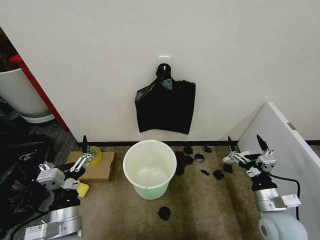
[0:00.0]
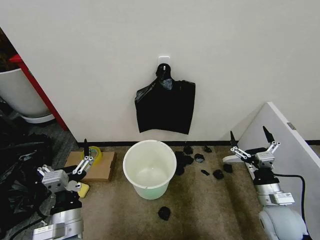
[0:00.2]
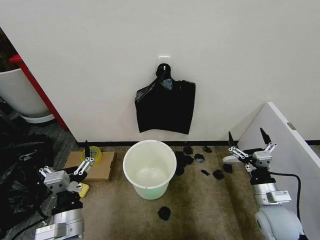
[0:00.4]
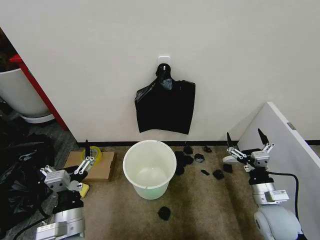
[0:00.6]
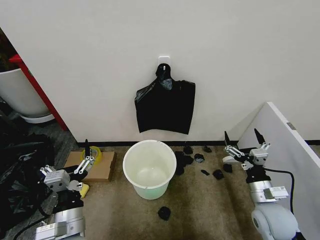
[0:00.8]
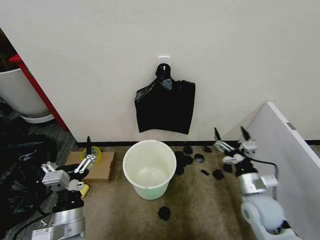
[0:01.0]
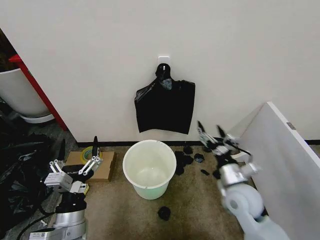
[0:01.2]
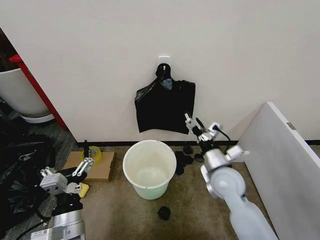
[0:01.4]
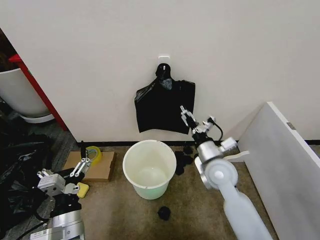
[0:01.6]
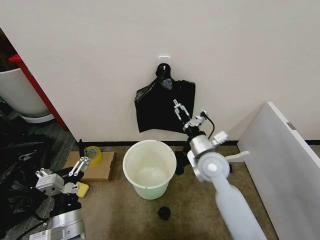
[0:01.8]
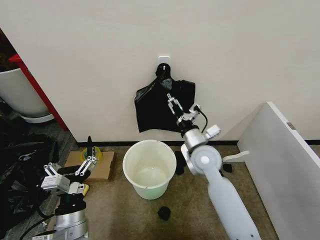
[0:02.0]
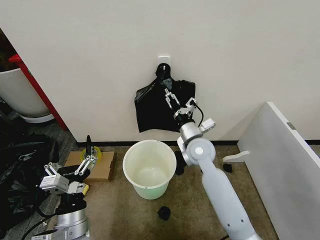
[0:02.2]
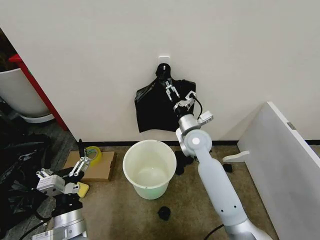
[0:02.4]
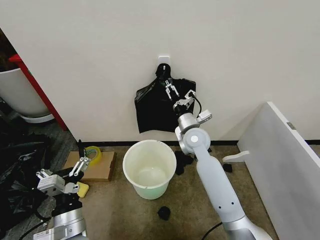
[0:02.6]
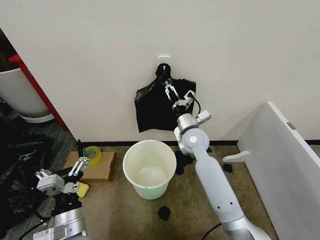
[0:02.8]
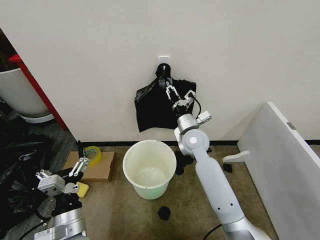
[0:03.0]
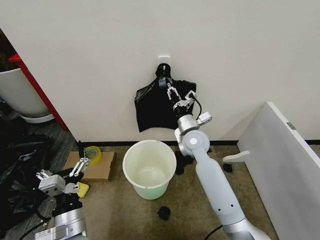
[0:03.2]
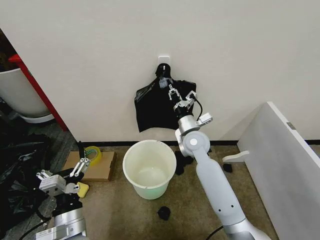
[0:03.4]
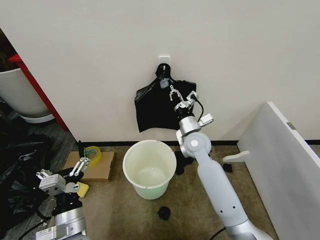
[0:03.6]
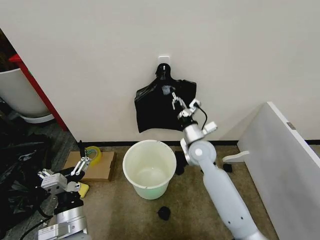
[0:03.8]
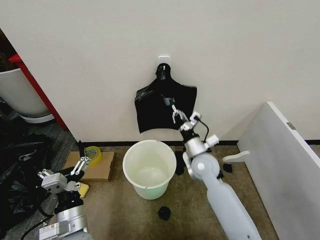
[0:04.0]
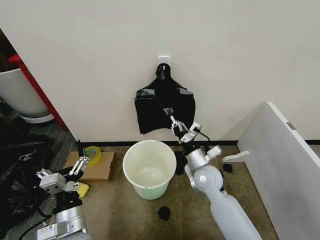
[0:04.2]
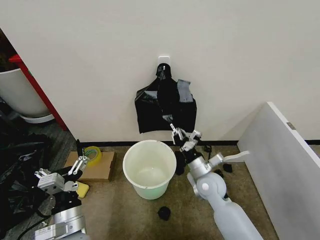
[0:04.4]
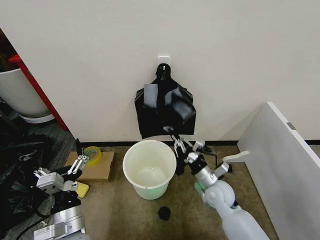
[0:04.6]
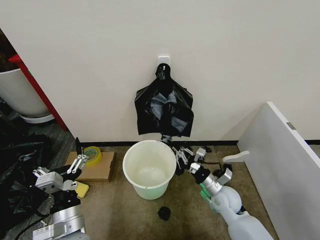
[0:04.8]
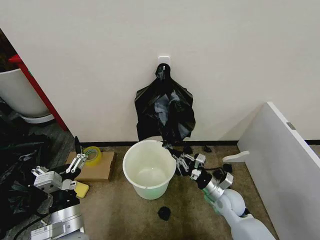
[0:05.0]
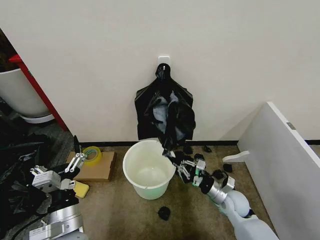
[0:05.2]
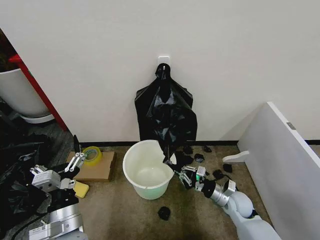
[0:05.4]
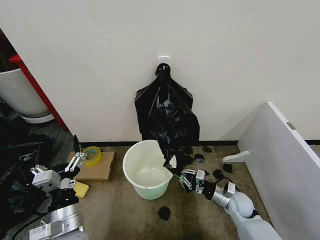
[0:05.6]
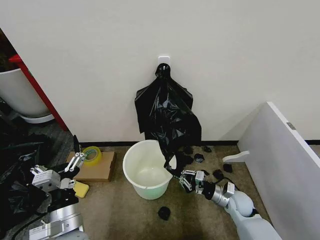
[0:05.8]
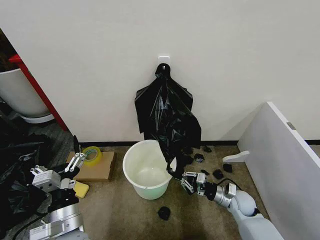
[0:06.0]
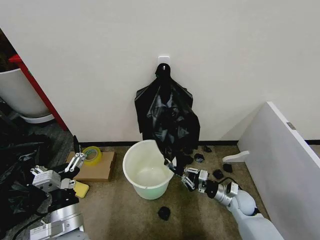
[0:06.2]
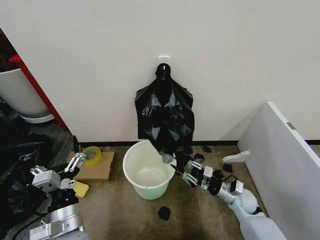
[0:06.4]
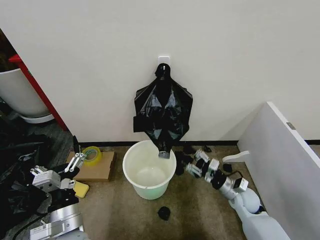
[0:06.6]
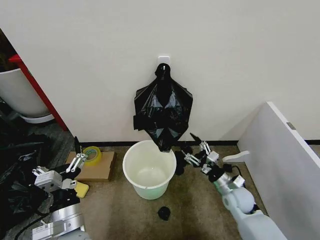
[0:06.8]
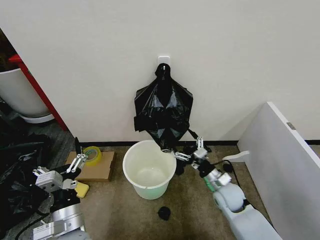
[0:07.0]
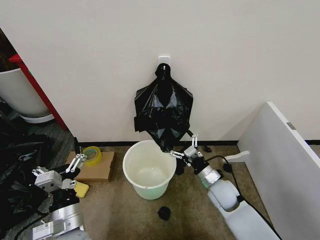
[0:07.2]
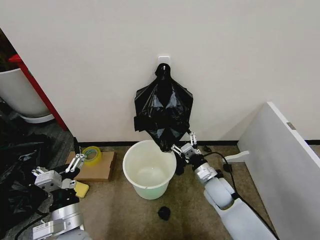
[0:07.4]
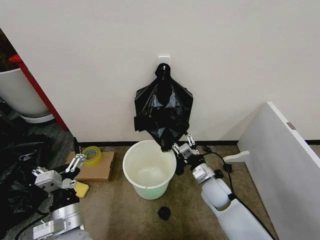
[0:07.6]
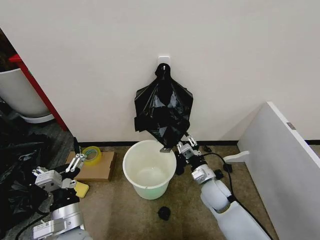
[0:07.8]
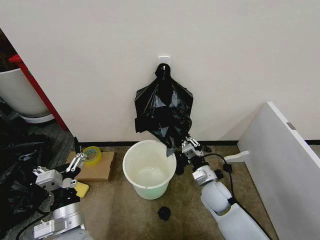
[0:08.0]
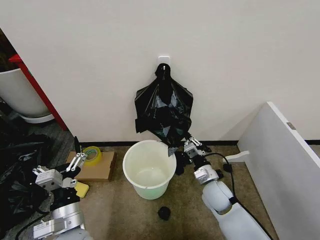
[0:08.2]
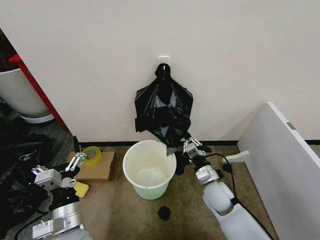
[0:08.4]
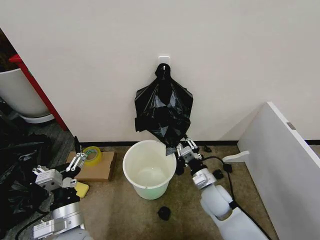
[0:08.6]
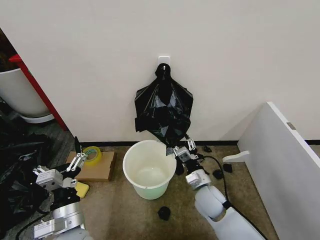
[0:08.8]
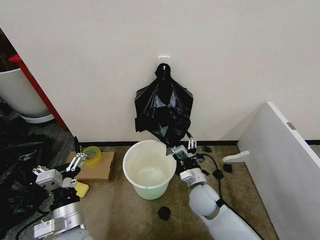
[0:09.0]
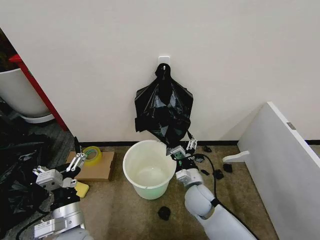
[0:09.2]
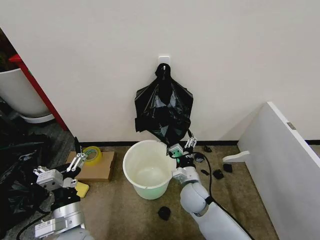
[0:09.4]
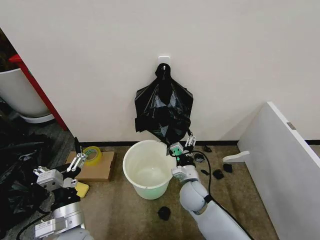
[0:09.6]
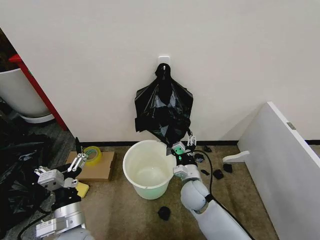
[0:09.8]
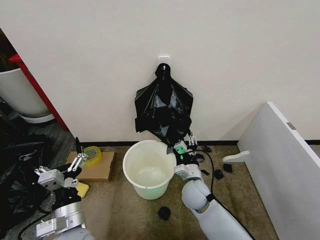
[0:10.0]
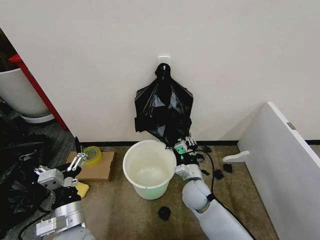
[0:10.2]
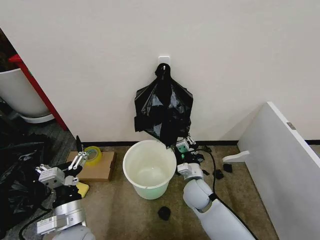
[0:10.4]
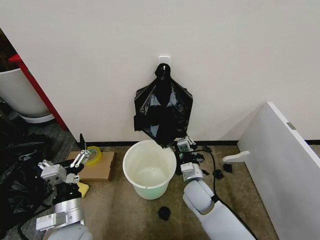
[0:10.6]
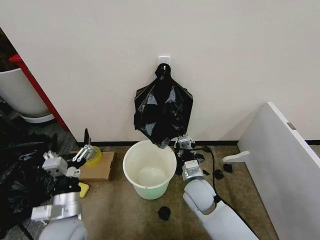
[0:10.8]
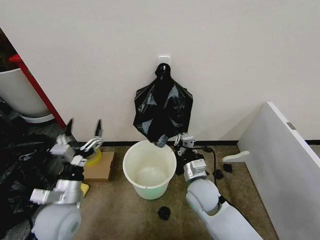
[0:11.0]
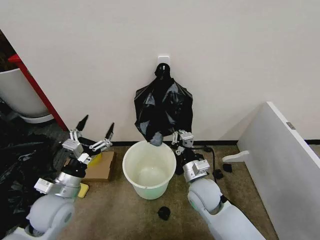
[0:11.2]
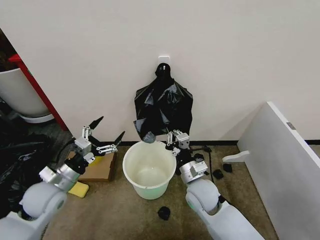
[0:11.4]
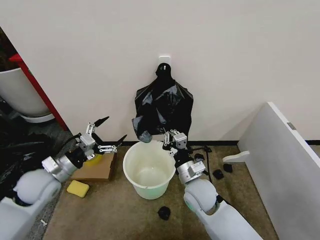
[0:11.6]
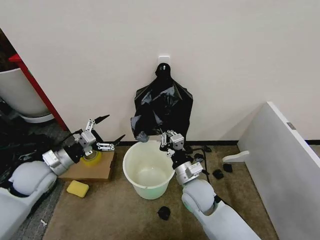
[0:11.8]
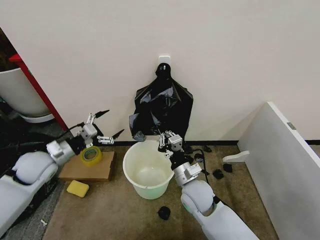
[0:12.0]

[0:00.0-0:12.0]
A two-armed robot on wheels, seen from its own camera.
Task of the whole recording: Place the garbage bag over the trash bin.
0:01.6 to 0:03.0: The right gripper goes some 10 cm forward and to the left, and closes its fingers.
0:03.0 to 0:04.4: The right gripper goes about 15 cm backward, downward and to the right, and closes.
0:04.4 to 0:06.0: The right gripper moves to the right and downward, approximately 15 cm.
0:06.0 to 0:07.6: The right gripper is displaced to the left and upward by some 10 cm, and opens its fingers.
0:07.6 to 0:09.0: The right gripper changes place by roughly 5 cm, and closes and opens again.
0:09.0 to 0:10.4: The right gripper closes up.
0:10.4 to 0:12.0: The right gripper travels upward by some 5 cm, while the left gripper travels forward and to the left by some 25 cm.

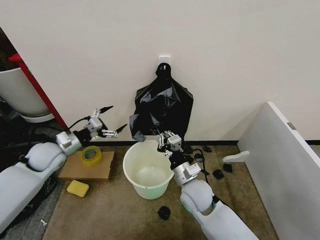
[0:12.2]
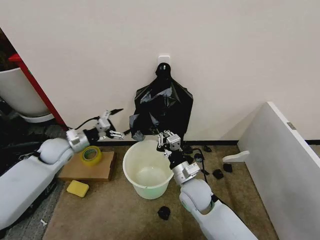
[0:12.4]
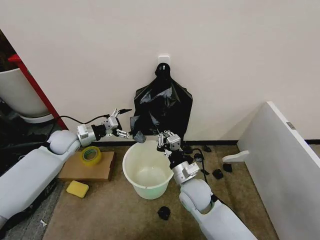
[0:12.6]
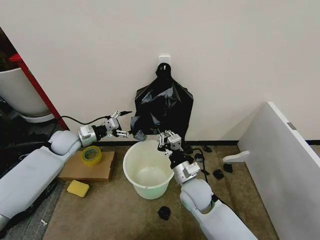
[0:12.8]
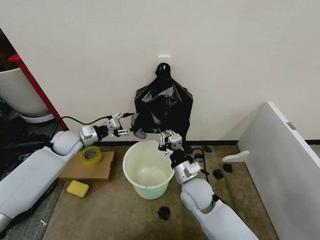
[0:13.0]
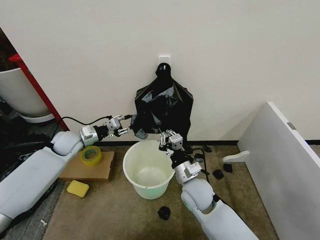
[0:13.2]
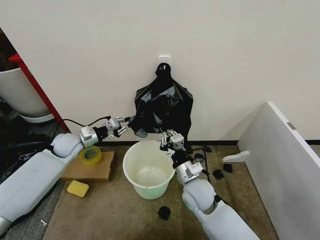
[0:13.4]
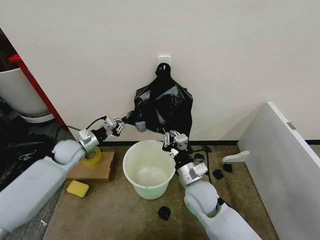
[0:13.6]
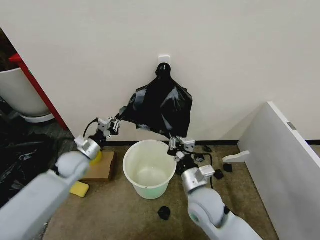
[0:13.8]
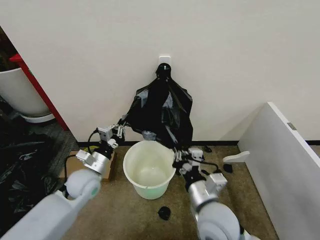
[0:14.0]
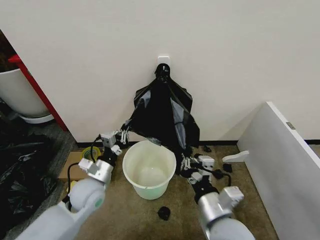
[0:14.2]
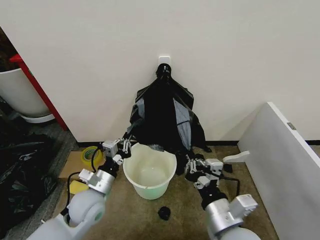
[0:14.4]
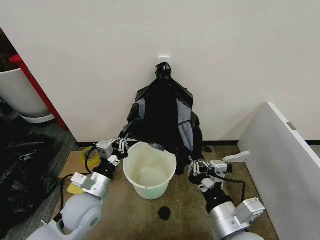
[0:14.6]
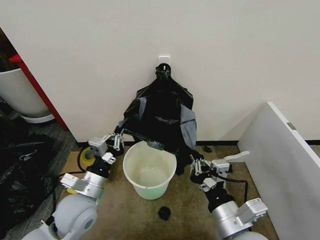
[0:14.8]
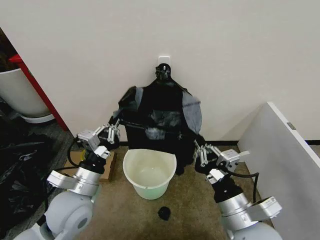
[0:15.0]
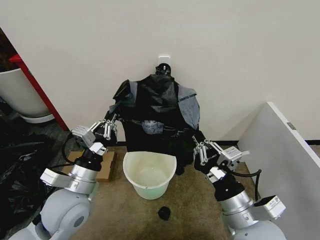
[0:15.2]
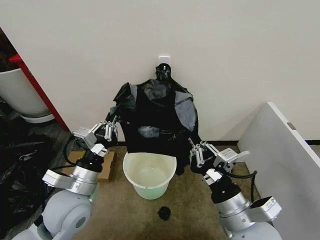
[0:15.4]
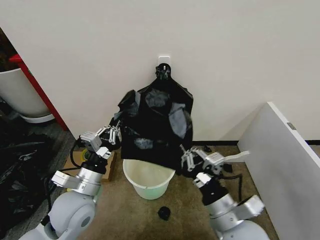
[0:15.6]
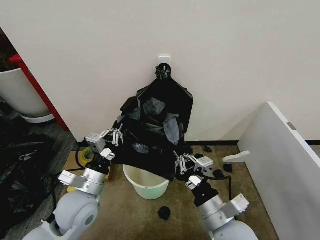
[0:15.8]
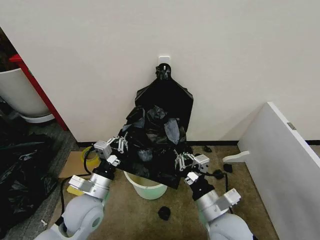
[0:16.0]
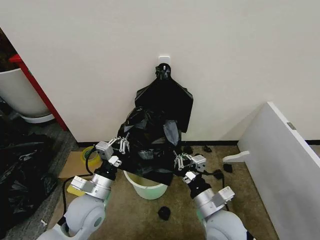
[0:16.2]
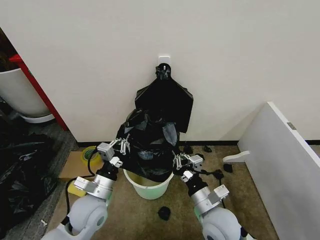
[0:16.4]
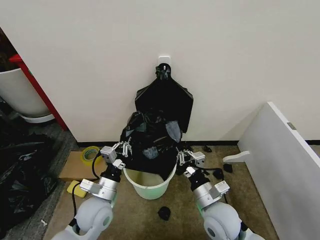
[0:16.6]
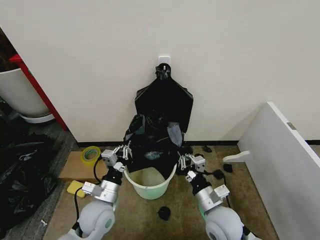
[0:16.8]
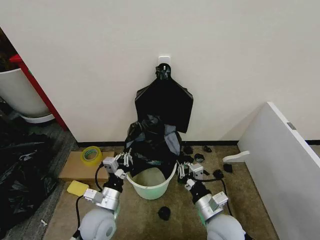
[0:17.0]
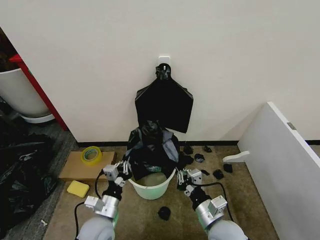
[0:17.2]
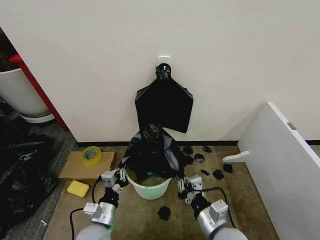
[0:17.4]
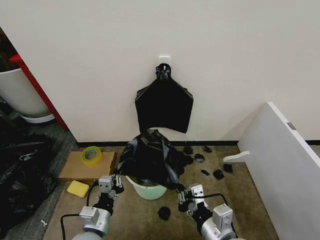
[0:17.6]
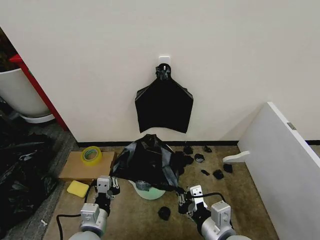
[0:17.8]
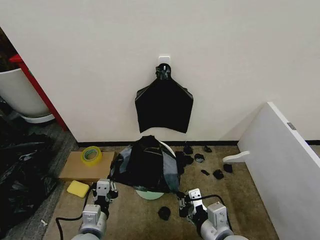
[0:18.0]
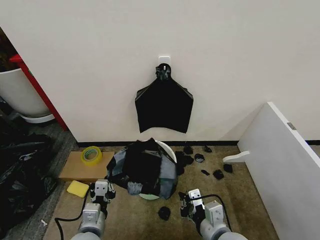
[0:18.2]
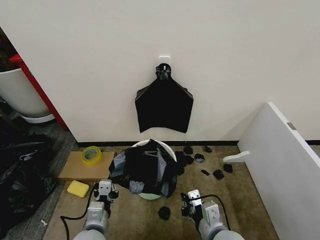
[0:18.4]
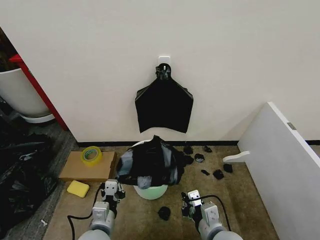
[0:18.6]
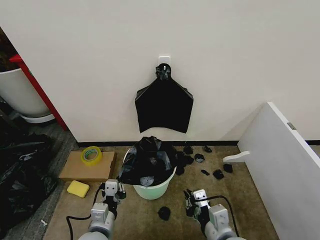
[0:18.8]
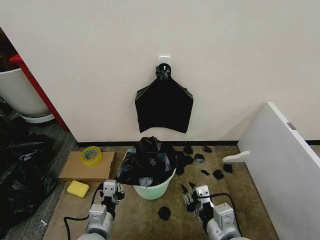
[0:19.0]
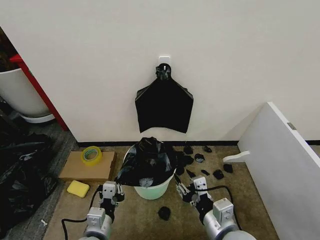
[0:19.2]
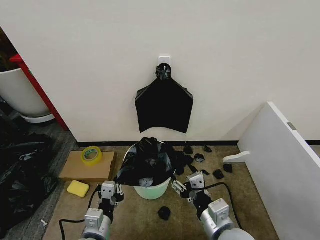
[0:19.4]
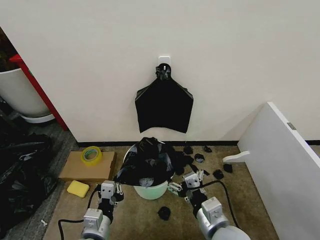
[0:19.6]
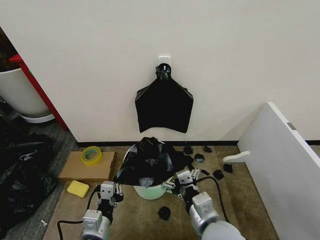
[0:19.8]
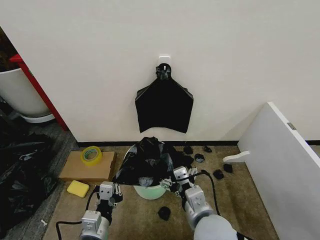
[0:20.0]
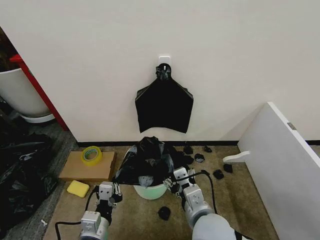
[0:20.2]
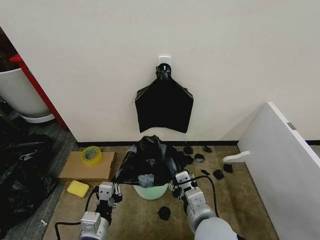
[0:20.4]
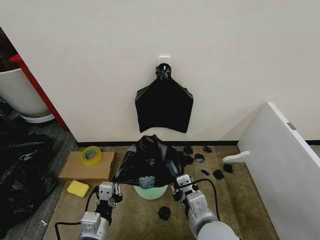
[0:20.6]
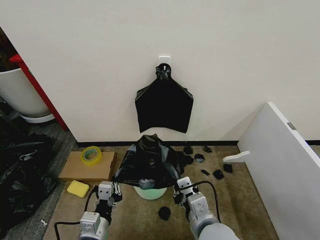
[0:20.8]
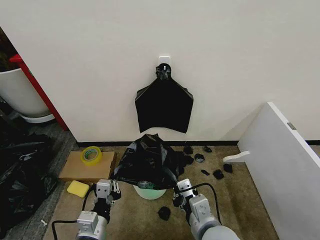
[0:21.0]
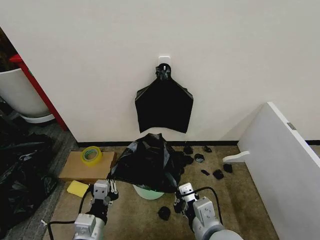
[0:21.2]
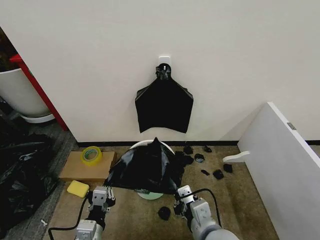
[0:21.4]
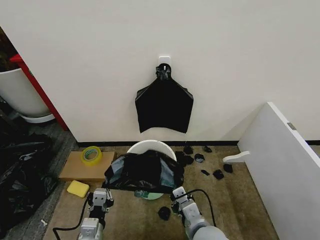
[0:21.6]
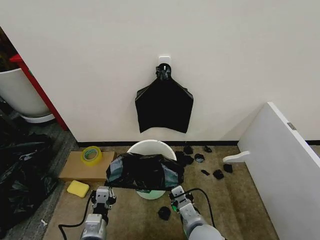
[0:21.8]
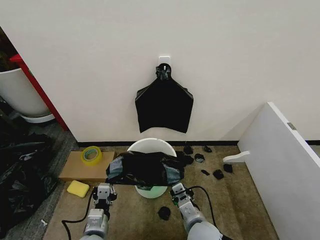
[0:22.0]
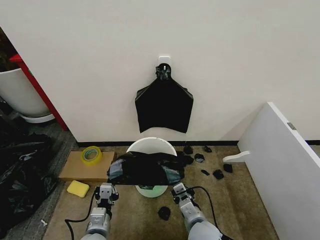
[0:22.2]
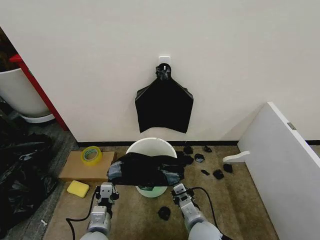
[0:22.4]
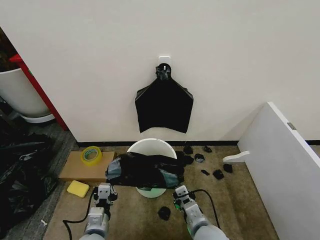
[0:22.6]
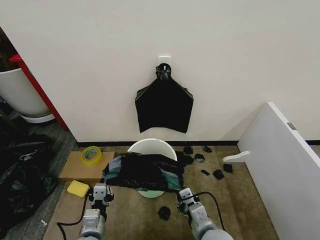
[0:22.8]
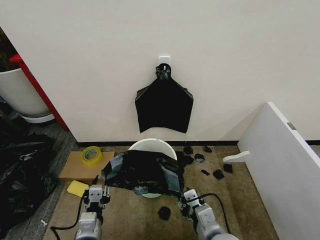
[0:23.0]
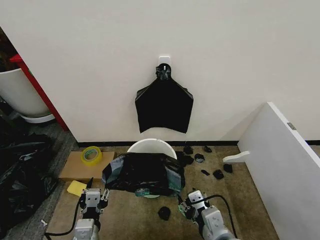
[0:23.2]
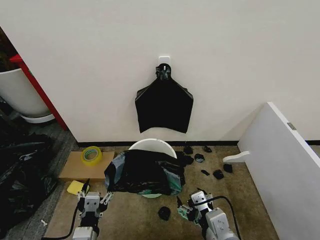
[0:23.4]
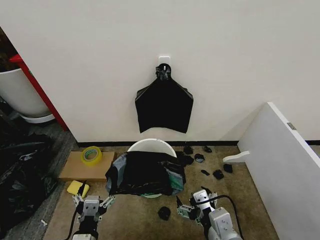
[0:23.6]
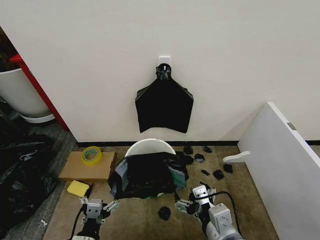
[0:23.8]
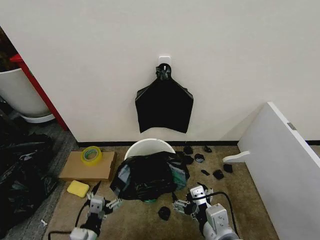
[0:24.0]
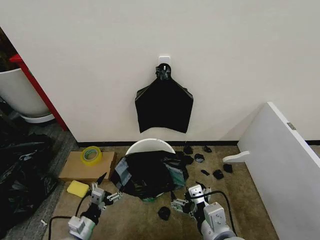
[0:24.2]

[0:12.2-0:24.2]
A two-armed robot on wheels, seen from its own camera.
Task of the whole recording: Place the garbage bag over the trash bin.
0:12.2 to 0:13.8: The right gripper ends up some 5 cm from where it was. Meanwhile the left gripper goes about 10 cm to the right and downward, travels forward and back again, some 5 cm each way, and closes up.
0:13.8 to 0:15.2: Both grippers move backward, upward and to the right, roughly 15 cm.
0:15.2 to 0:16.6: The right gripper moves downward and forward, approximately 15 cm, while the left gripper shifts roughly 10 cm downward.
0:16.6 to 0:18.2: Both grippers travel together backward, approximately 10 cm.
0:18.2 to 0:19.8: The right gripper opens up.
0:19.8 to 0:21.2: The right gripper closes its fingers.
0:21.2 to 0:22.6: The right gripper is displaced downward by about 15 cm; the left gripper shifts roughly 10 cm downward.
0:22.6 to 0:24.2: The left gripper moves to the left, some 10 cm, and opens its fingers, while the right gripper goes some 15 cm upward and backward, and opens its fingers.
